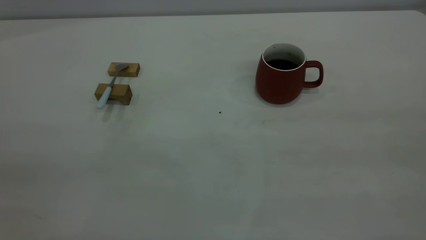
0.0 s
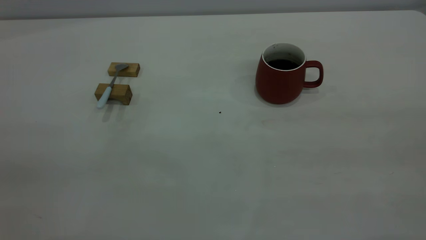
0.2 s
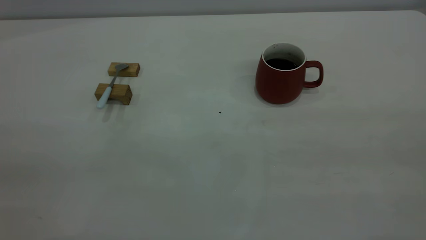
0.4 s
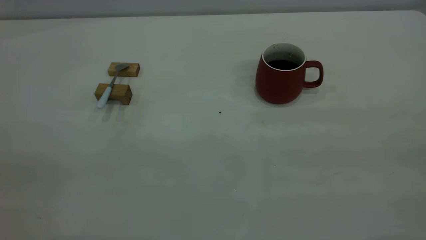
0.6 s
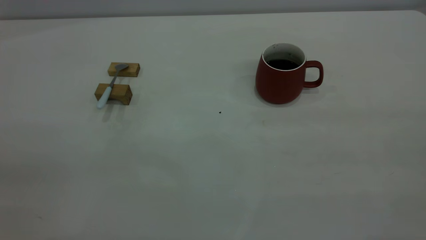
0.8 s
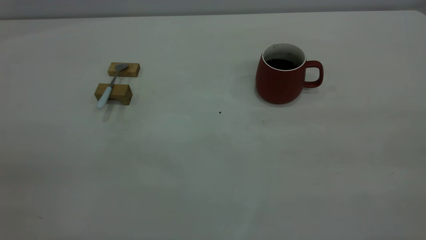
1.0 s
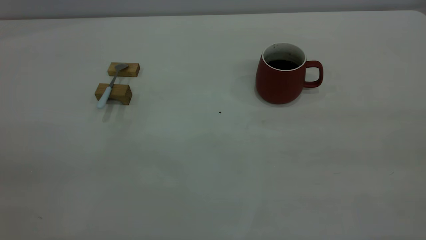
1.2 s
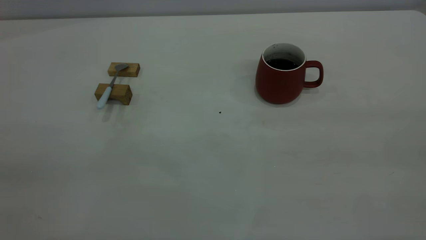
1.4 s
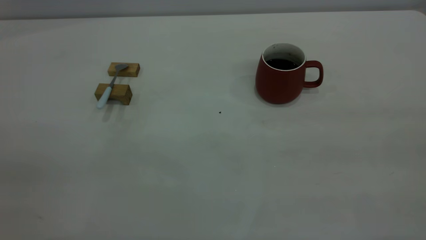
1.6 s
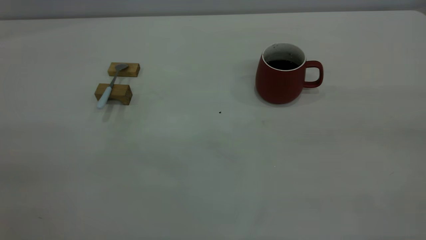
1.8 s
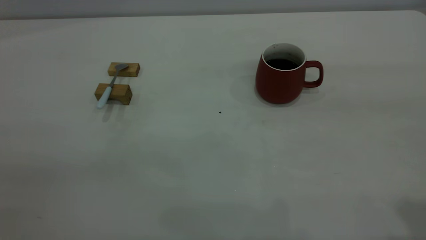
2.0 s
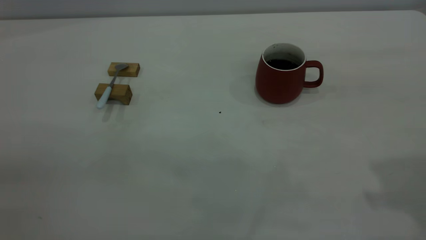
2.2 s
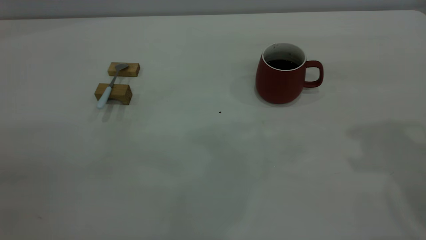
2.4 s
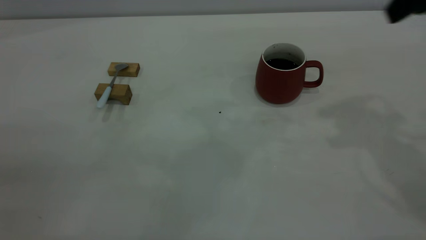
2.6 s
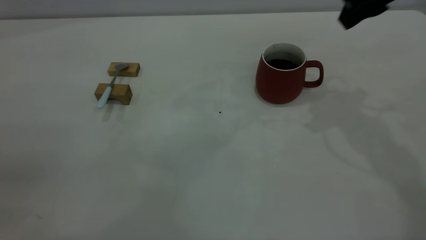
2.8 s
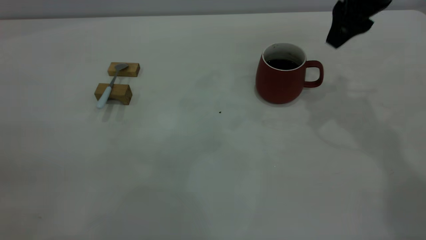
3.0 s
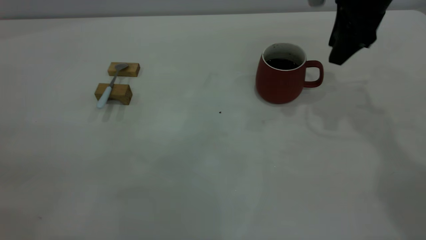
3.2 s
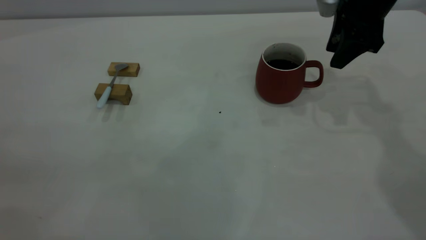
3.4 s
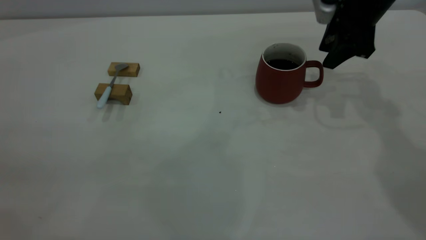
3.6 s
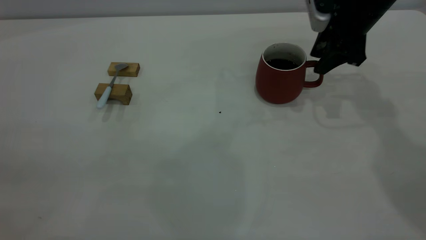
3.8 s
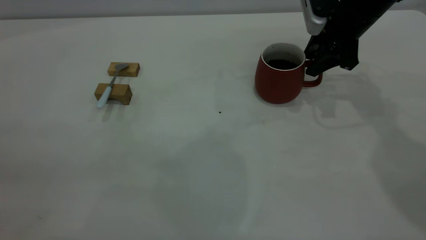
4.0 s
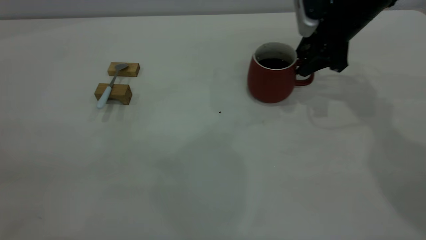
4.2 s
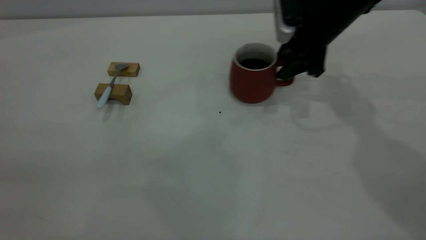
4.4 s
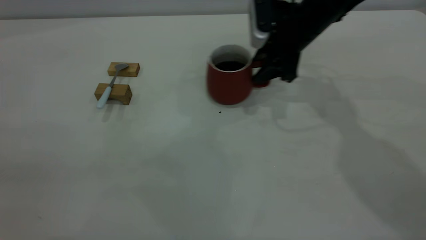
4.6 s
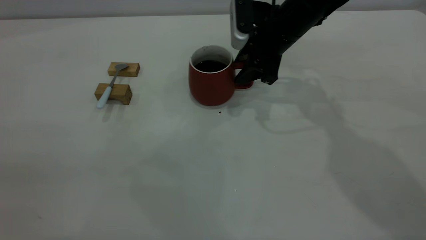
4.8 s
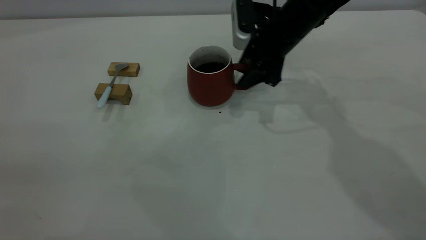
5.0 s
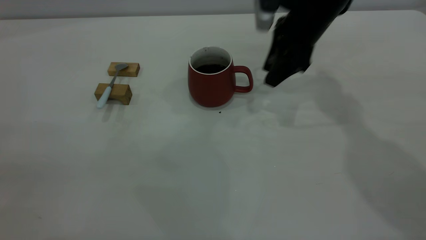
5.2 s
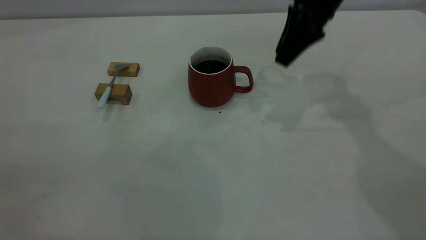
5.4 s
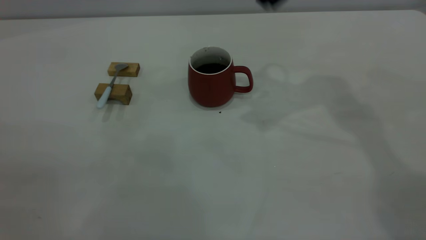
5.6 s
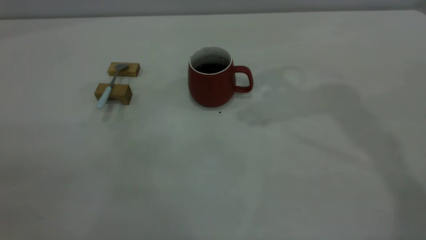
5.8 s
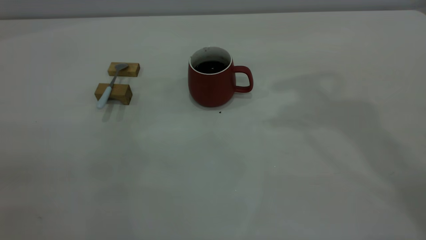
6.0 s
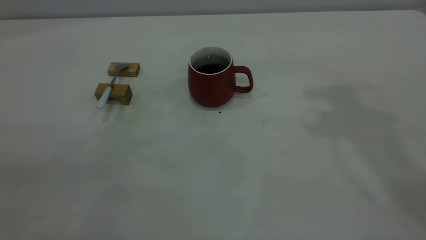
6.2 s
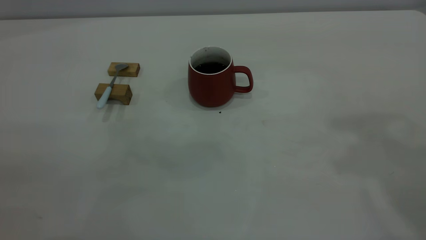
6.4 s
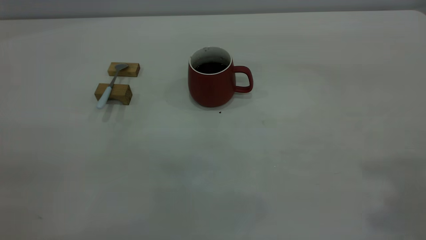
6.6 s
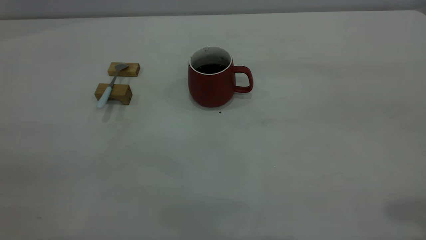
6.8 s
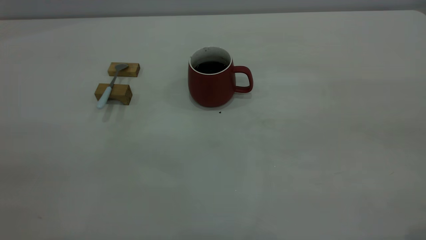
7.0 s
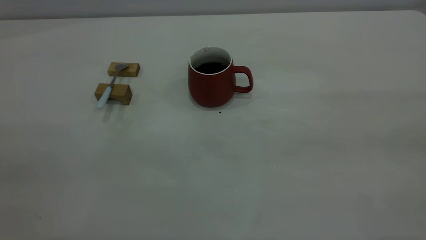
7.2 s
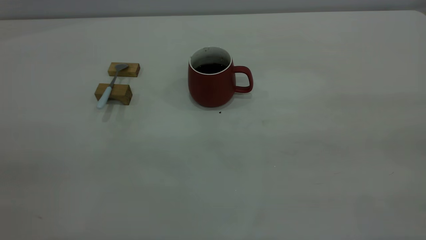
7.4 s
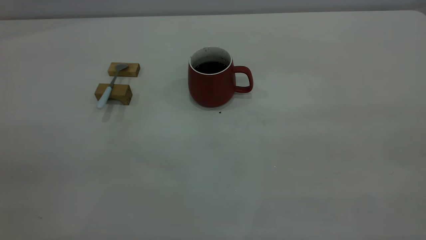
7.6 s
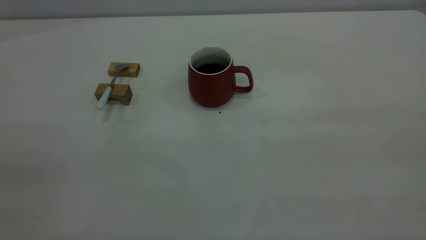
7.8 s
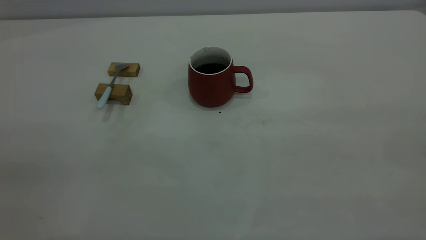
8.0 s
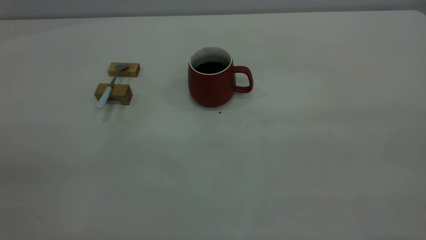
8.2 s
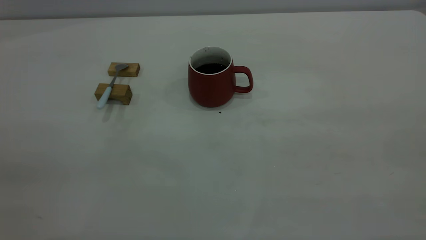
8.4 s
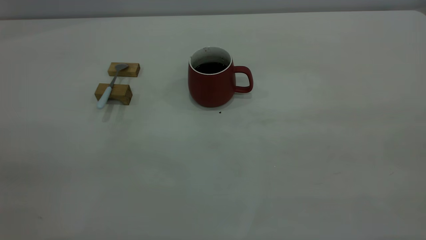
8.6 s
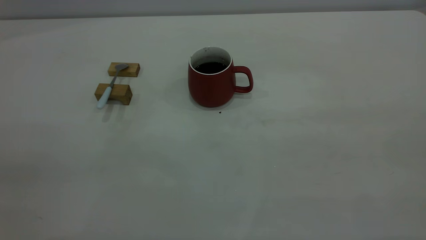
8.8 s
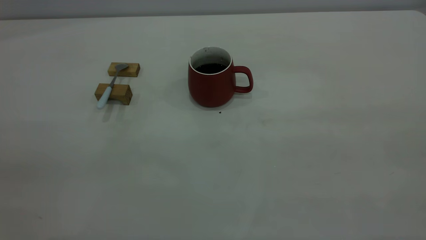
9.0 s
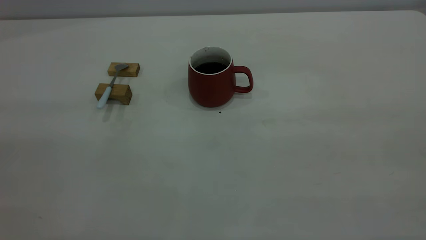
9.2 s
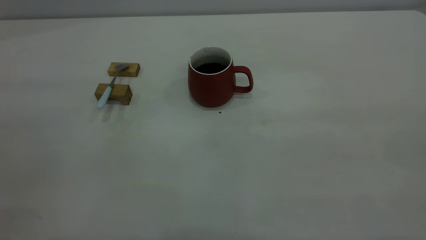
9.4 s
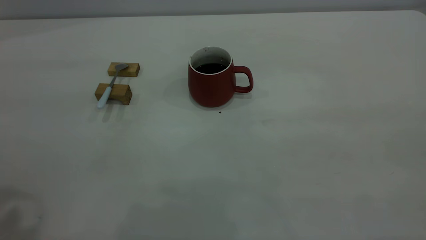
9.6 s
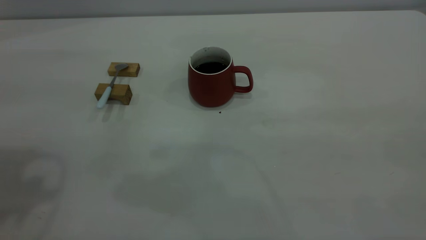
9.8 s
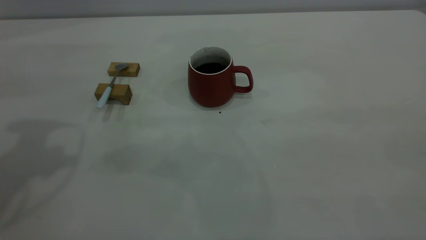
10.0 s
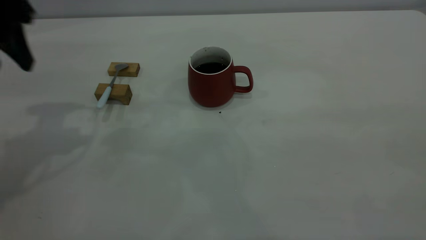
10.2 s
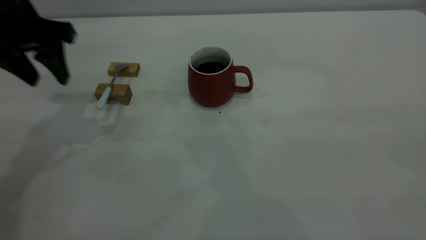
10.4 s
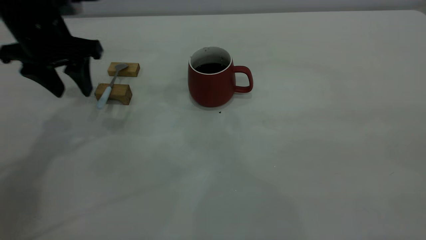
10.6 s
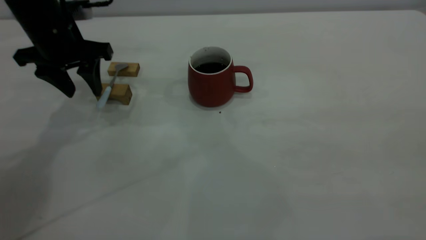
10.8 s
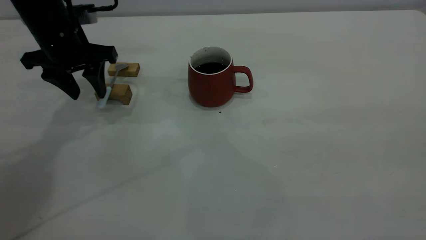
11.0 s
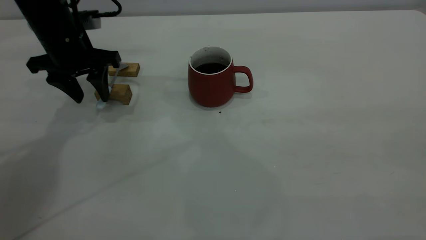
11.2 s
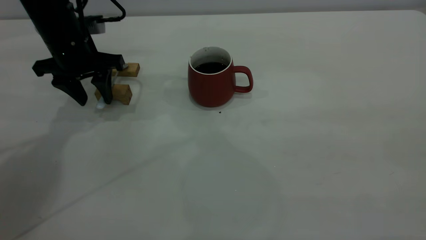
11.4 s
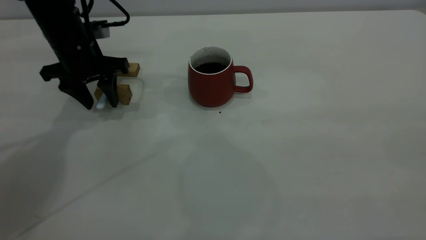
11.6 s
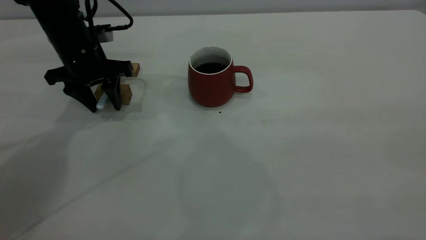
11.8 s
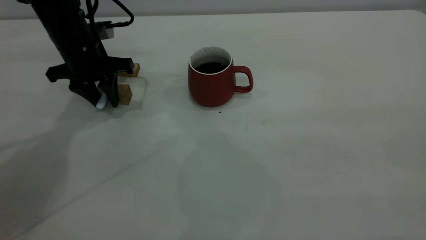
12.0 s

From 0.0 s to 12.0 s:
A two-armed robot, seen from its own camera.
Step, from 0.0 s to 5.2 s: Move the cup with coffee to the center of view.
From 1.6 s to 3.0 s: The right gripper shifts approximately 40 cm forward.
From 3.0 s to 4.4 s: The right gripper heads downward, covering about 10 cm.
From 4.4 s to 6.0 s: The right gripper travels upward by about 30 cm.
From 7.6 s to 9.0 s: Both grippers stay put.
From 9.0 s to 10.4 s: The left gripper is displaced forward and downward by roughly 40 cm.
From 10.4 s to 12.0 s: The left gripper is displaced downward and forward by roughly 10 cm, and closes its fingers.

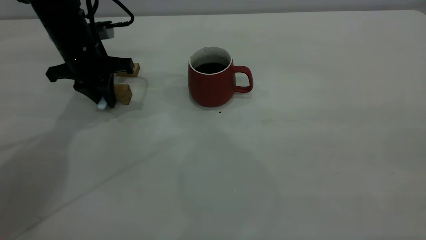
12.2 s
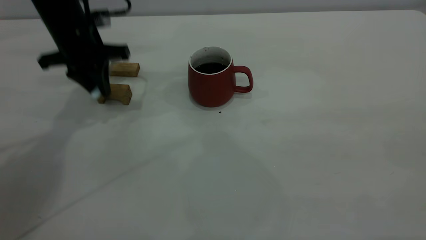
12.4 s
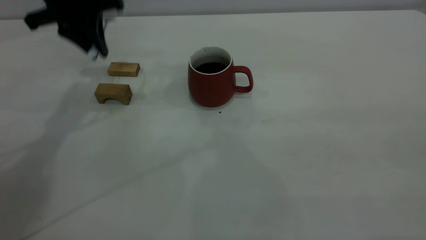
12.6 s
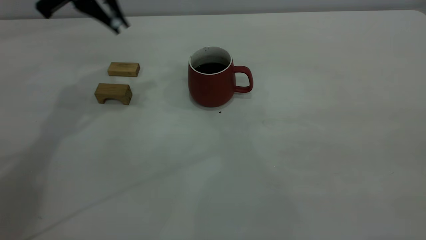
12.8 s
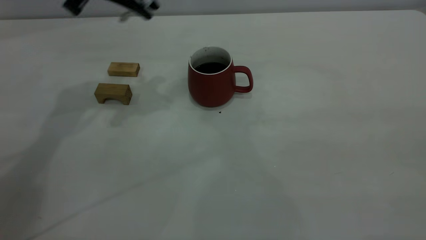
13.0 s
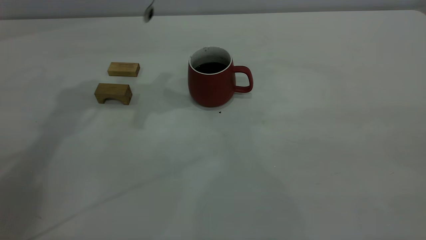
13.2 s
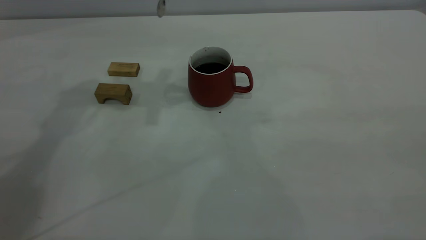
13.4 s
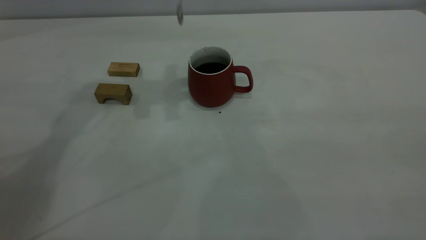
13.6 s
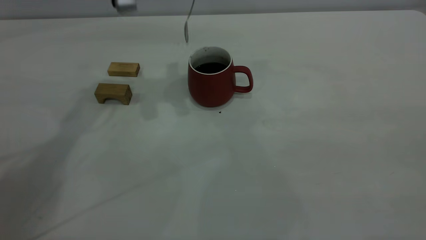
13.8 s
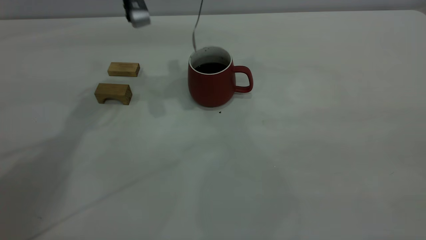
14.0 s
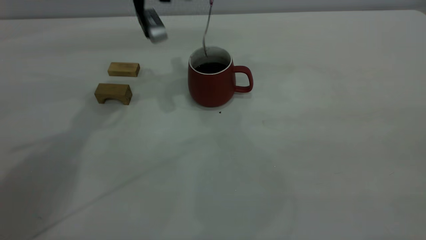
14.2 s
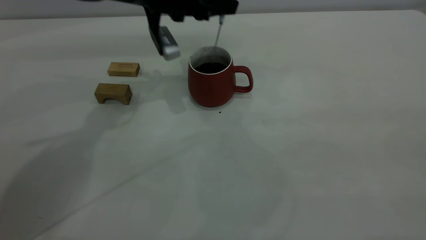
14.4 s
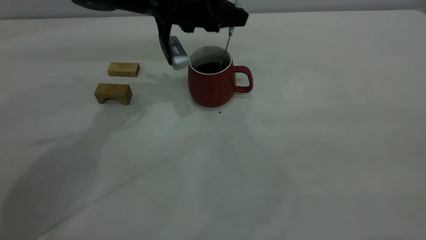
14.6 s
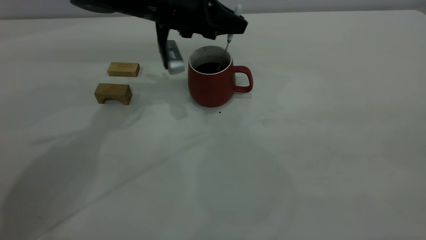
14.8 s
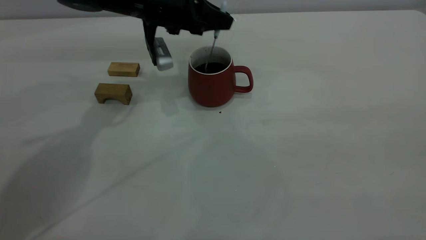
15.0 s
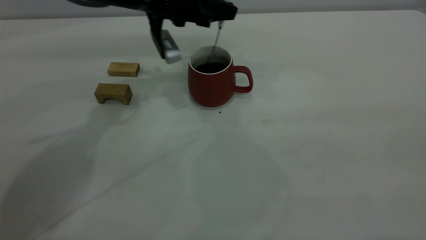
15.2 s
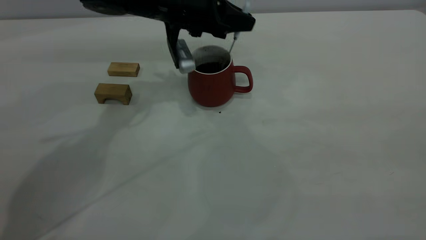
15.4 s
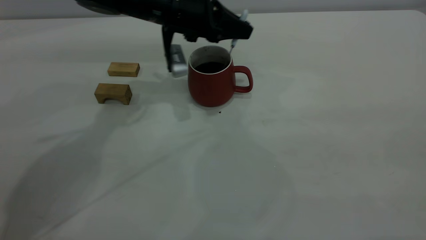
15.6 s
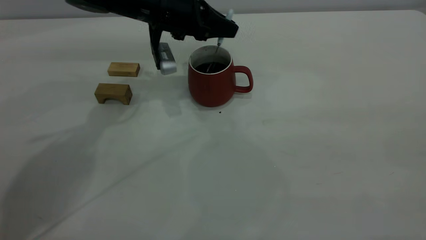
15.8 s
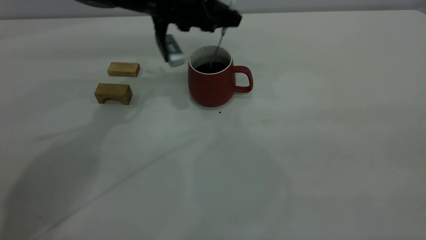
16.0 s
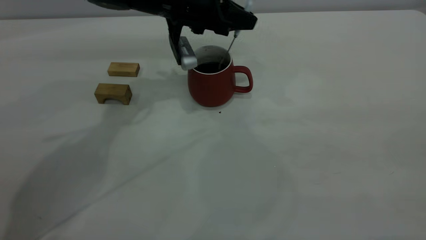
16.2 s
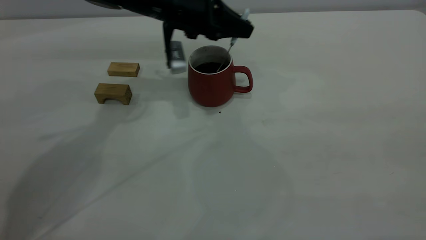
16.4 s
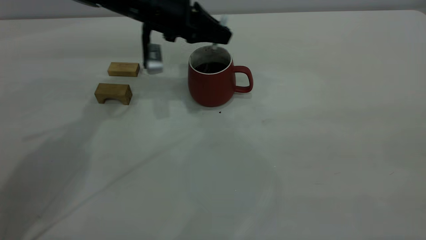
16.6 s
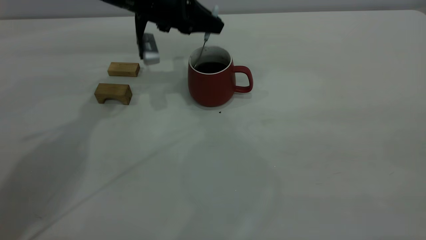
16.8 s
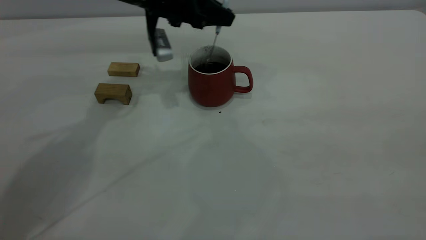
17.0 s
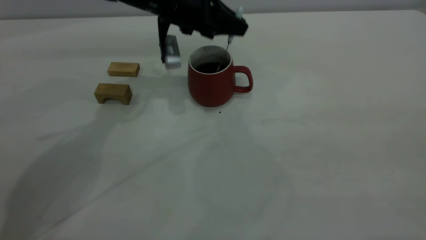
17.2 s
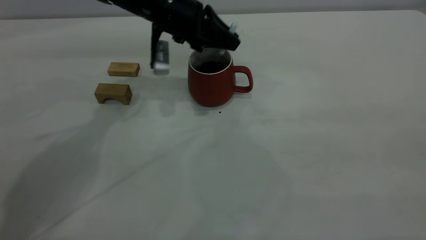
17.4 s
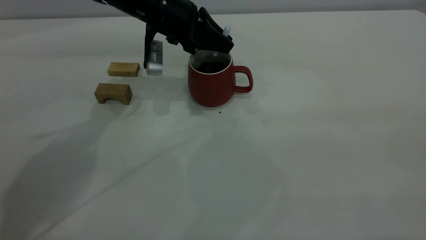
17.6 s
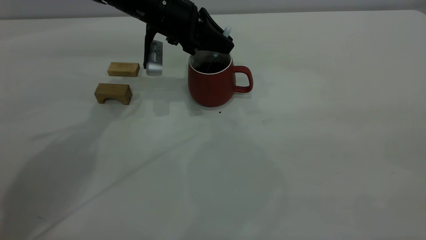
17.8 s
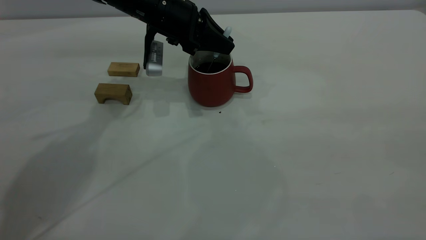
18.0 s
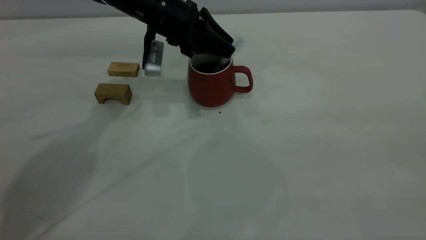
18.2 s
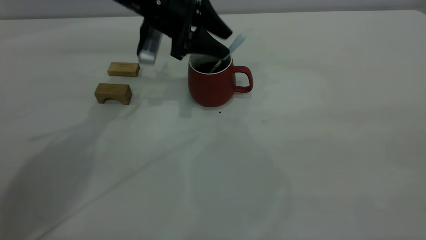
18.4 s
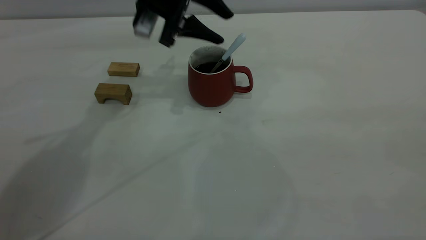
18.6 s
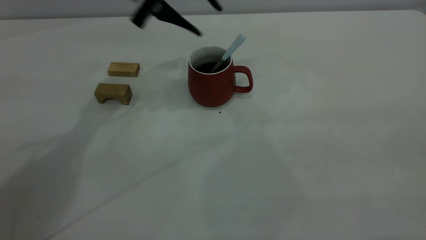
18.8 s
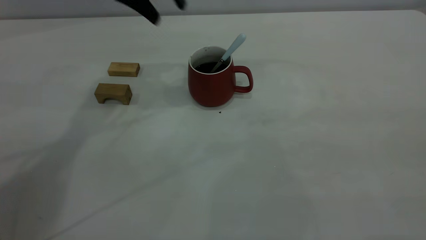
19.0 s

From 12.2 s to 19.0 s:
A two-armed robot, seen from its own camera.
Step, from 12.8 s to 18.6 s: Stir the coffee in the cup.
From 12.2 s to 13.6 s: The left gripper heads upward and to the right, covering approximately 20 cm.
From 13.6 s to 15.0 s: The left gripper moves downward, some 15 cm.
From 15.0 s to 17.6 s: There are only small adjustments of the grippers.
From 17.6 s to 19.0 s: The left gripper travels upward by roughly 15 cm, and opens.
